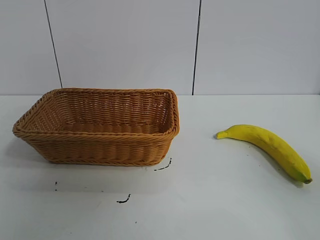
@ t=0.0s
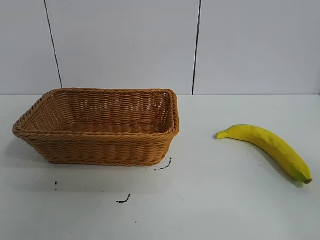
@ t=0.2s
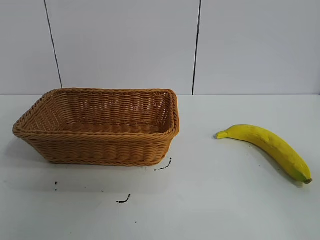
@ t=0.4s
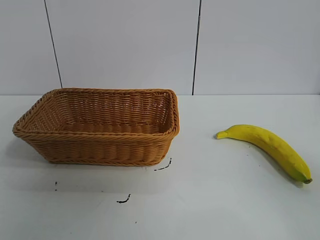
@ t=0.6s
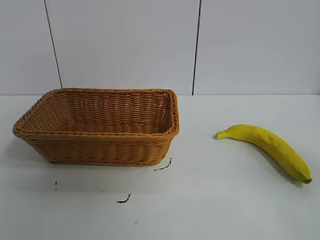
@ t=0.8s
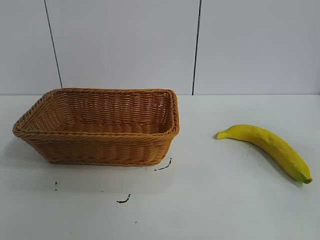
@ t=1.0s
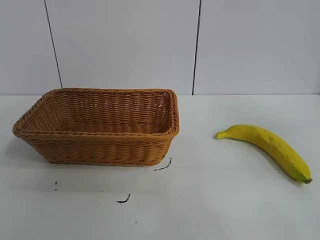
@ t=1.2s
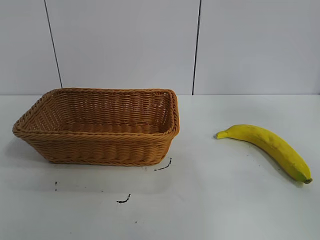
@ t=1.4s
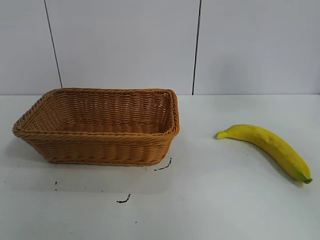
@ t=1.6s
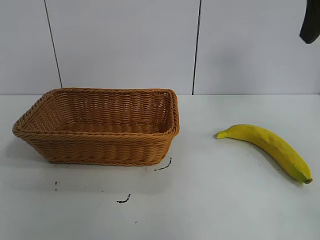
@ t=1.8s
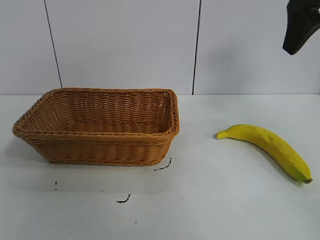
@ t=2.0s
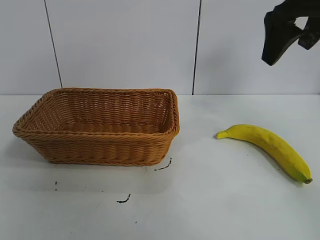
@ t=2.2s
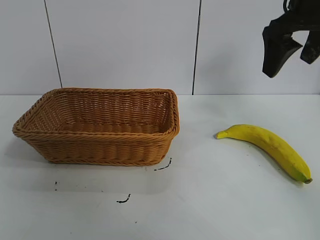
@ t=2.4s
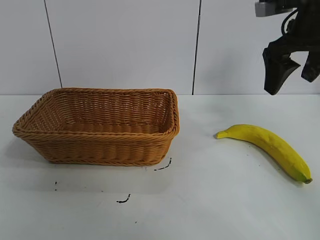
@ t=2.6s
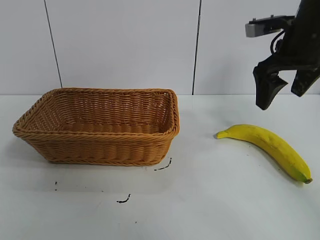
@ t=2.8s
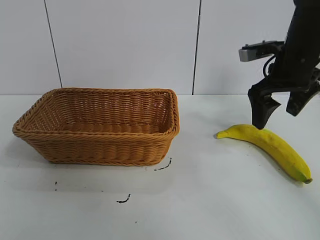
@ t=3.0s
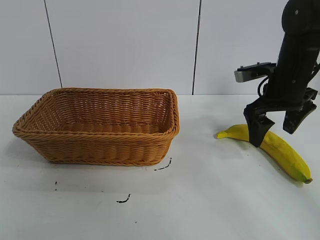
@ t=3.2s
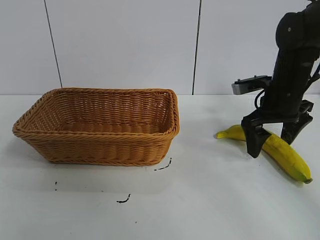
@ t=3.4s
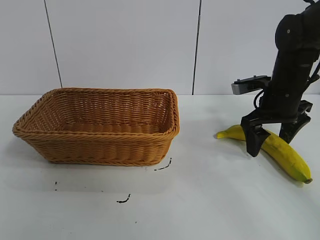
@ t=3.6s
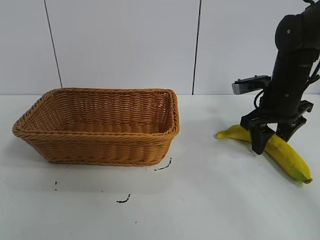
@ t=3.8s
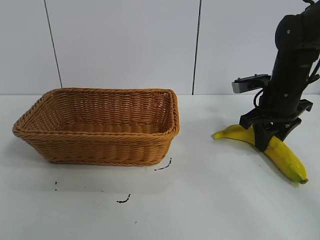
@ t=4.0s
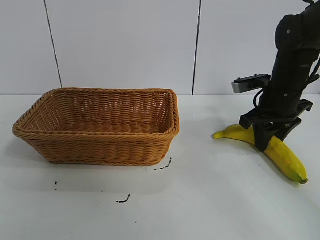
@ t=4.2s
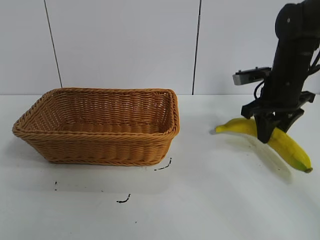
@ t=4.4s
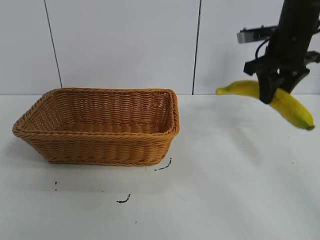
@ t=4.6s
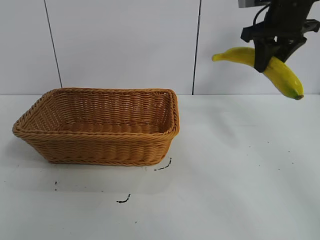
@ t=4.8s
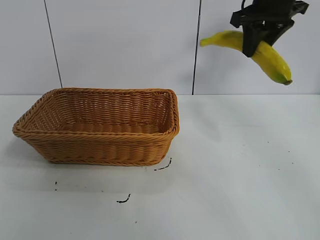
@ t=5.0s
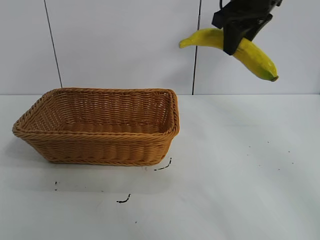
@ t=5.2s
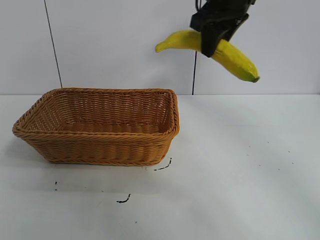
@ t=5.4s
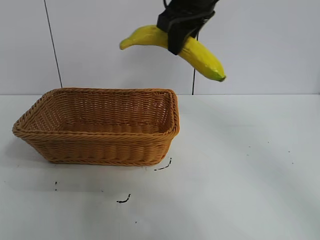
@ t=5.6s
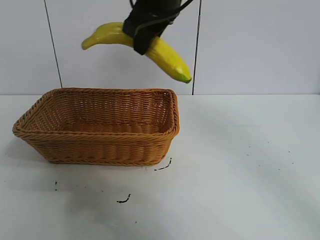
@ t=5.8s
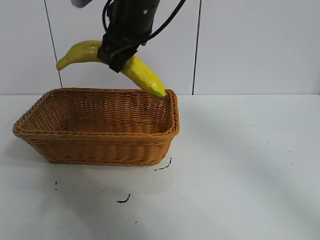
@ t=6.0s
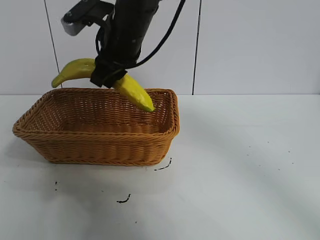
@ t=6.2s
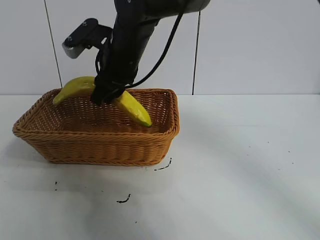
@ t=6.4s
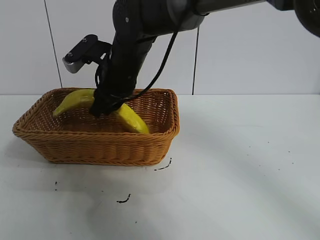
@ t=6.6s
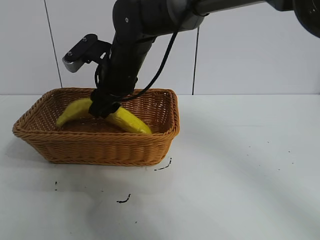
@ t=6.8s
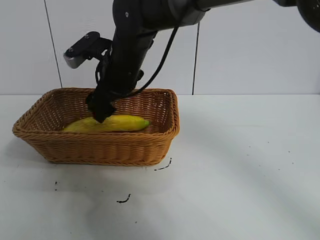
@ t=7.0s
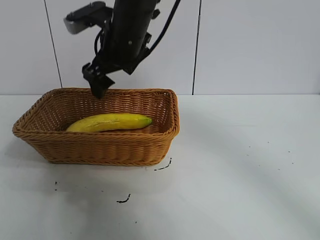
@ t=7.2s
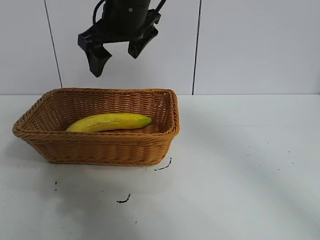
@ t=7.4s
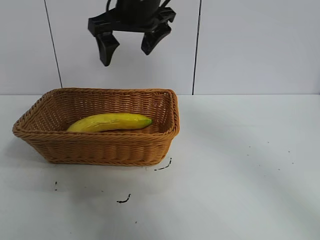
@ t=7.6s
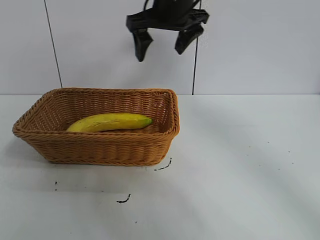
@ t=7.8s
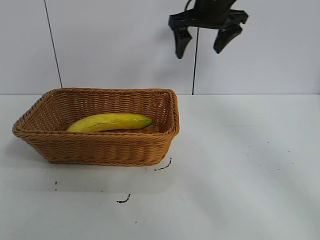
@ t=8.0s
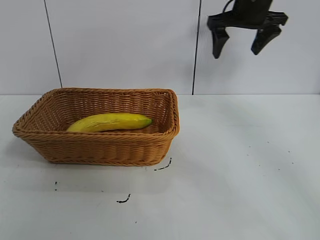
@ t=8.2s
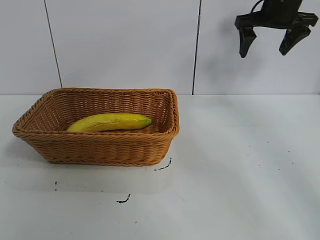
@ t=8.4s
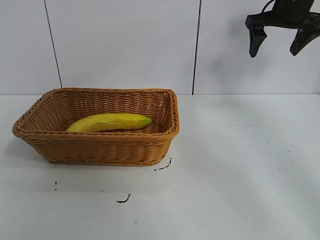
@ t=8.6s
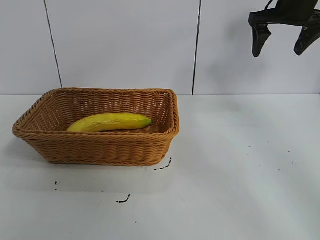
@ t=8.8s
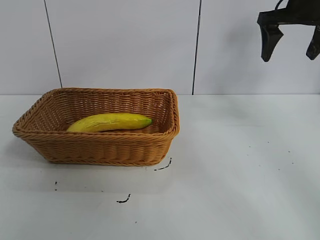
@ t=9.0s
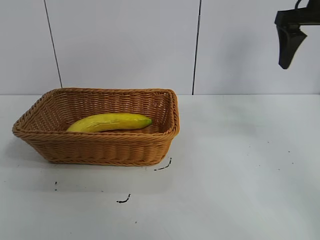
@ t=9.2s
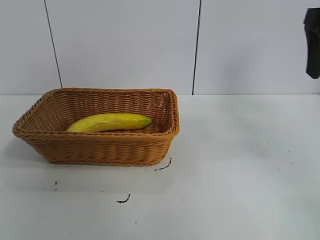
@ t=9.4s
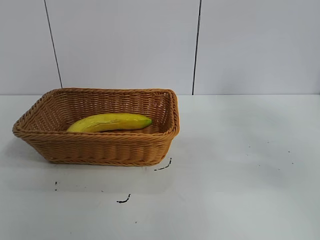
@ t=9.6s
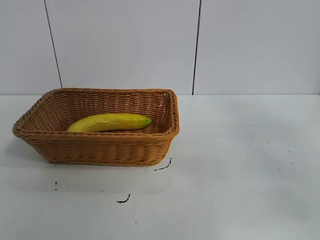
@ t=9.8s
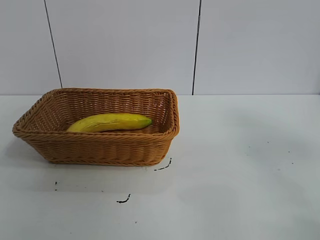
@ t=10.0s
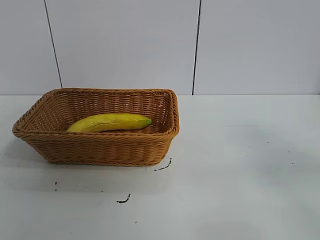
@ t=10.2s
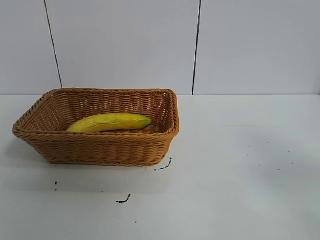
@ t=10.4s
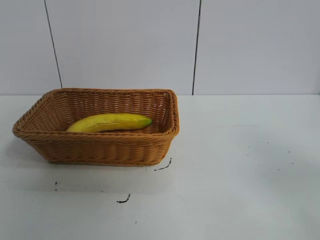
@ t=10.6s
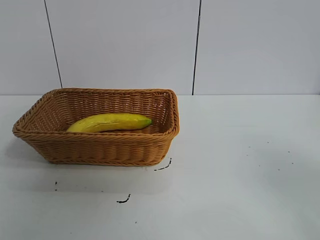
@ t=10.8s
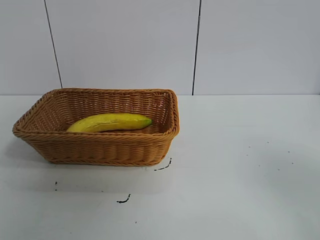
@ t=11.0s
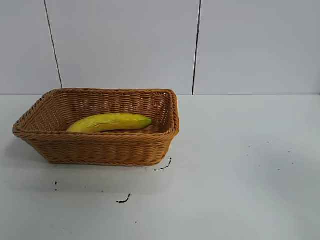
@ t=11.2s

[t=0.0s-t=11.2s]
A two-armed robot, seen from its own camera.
Task of the whole recording: pick up the banana and put it into the basket.
Step, t=0.8s to t=4.0s: Grasp the banana with right gripper.
Step, t=4.2s to t=6.8s: Place the banana in the basket with right gripper.

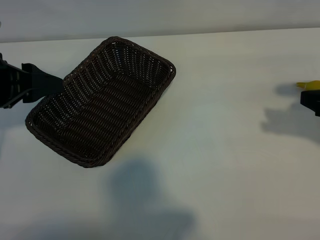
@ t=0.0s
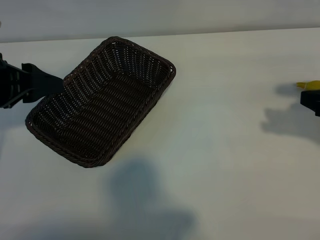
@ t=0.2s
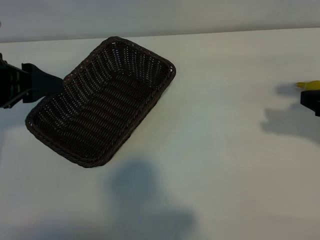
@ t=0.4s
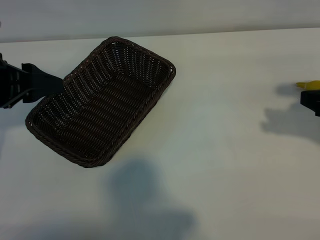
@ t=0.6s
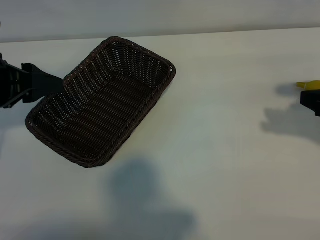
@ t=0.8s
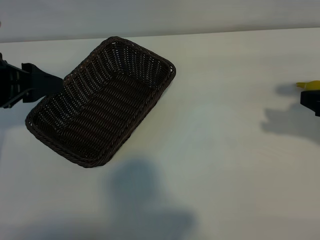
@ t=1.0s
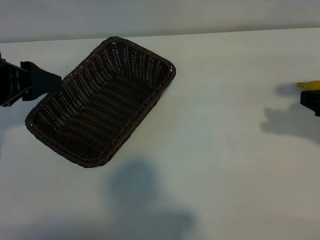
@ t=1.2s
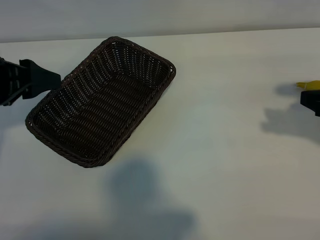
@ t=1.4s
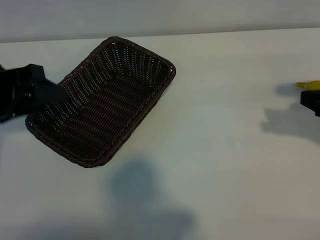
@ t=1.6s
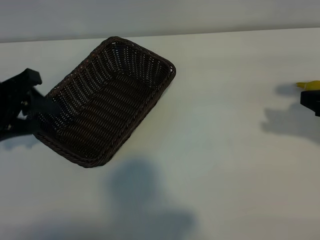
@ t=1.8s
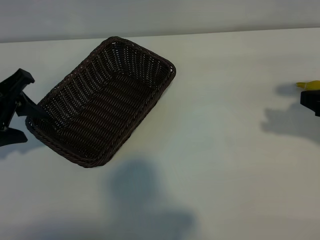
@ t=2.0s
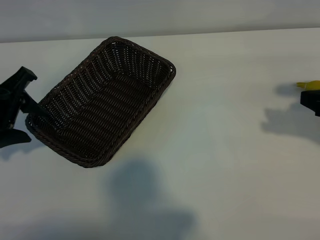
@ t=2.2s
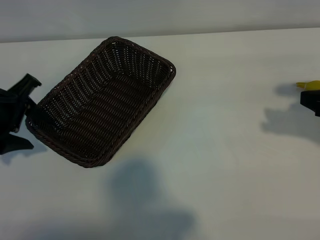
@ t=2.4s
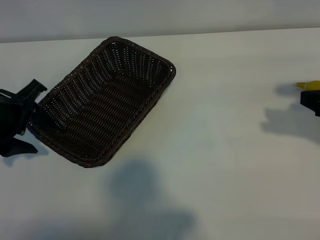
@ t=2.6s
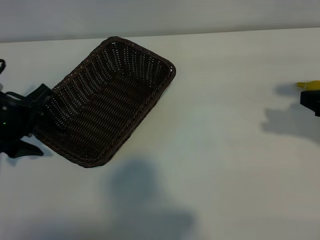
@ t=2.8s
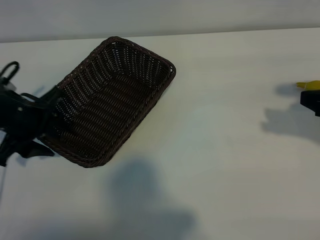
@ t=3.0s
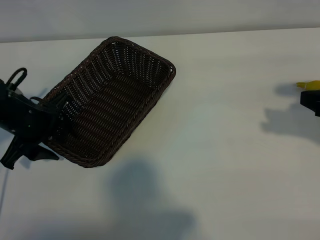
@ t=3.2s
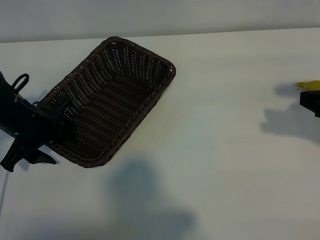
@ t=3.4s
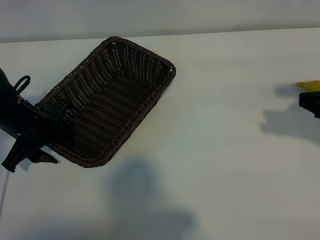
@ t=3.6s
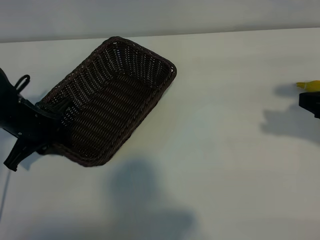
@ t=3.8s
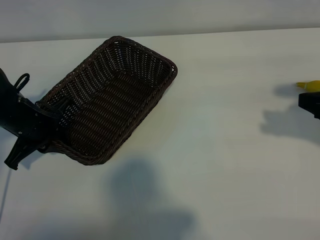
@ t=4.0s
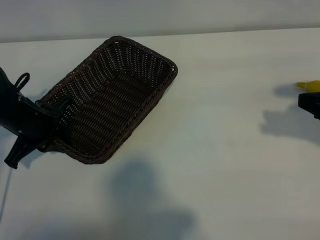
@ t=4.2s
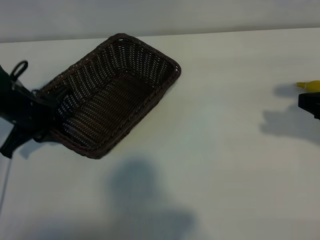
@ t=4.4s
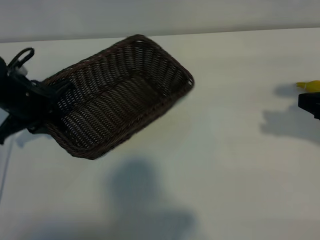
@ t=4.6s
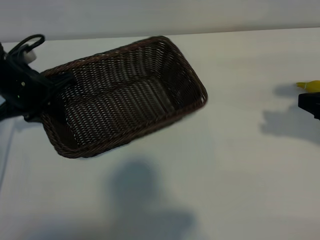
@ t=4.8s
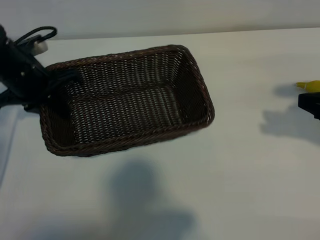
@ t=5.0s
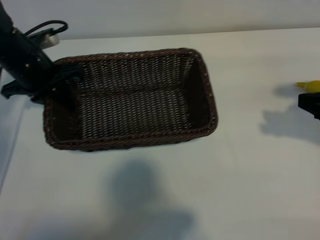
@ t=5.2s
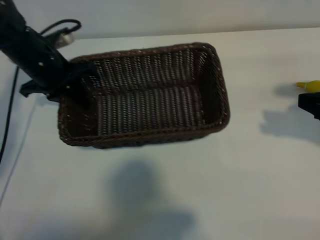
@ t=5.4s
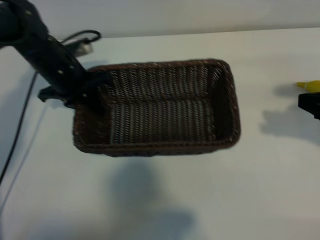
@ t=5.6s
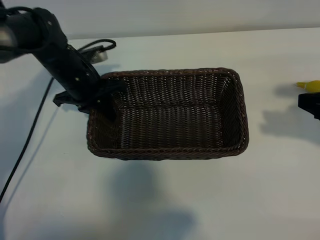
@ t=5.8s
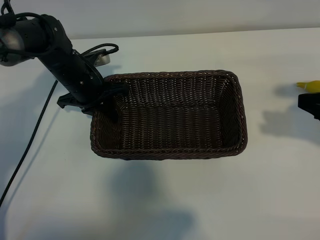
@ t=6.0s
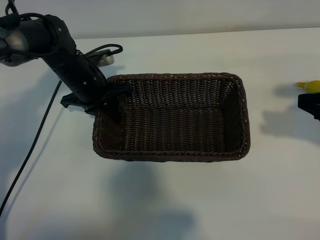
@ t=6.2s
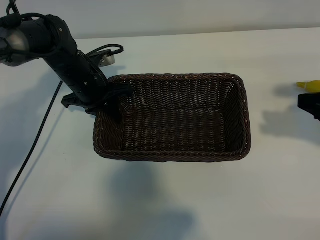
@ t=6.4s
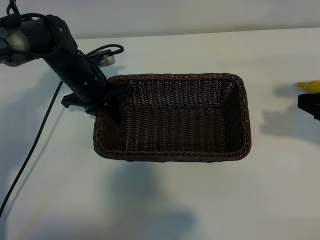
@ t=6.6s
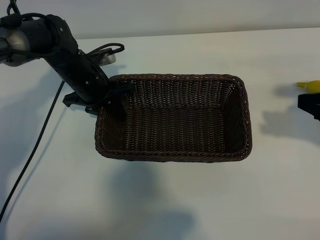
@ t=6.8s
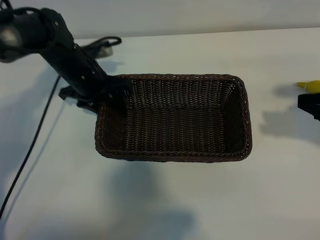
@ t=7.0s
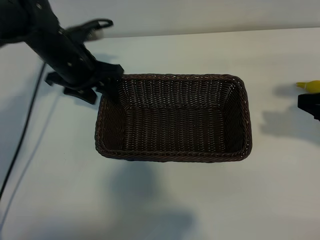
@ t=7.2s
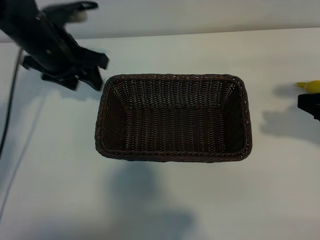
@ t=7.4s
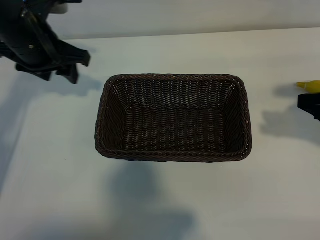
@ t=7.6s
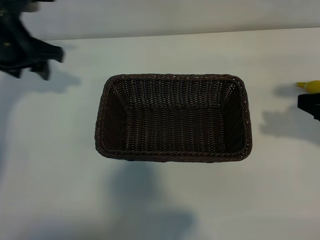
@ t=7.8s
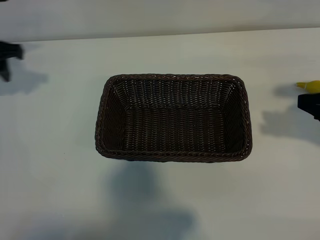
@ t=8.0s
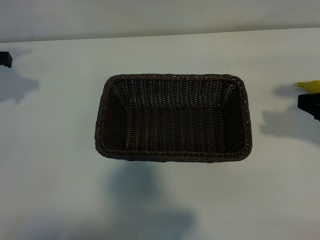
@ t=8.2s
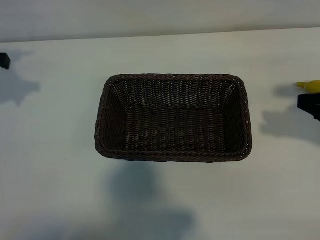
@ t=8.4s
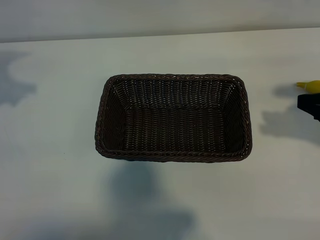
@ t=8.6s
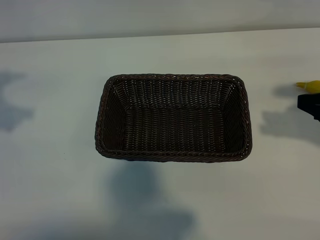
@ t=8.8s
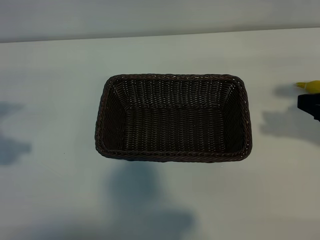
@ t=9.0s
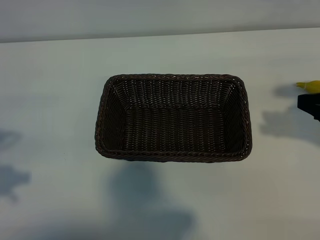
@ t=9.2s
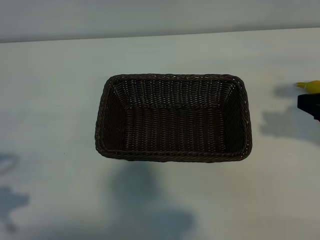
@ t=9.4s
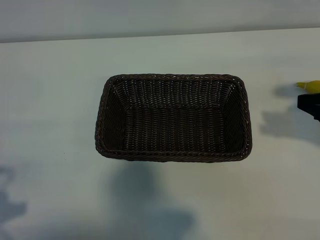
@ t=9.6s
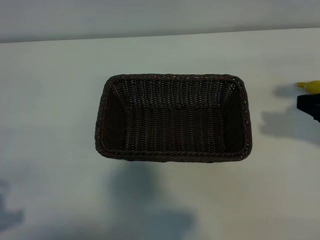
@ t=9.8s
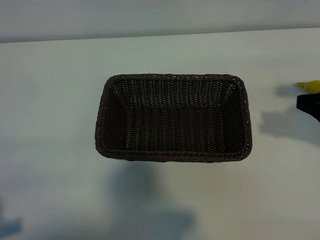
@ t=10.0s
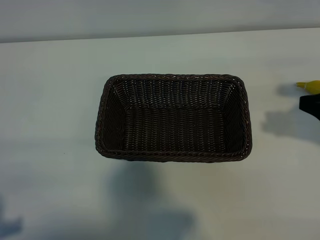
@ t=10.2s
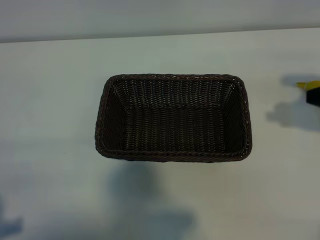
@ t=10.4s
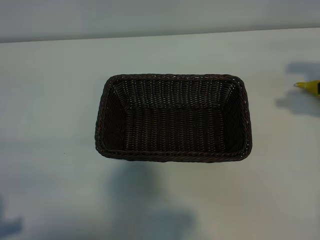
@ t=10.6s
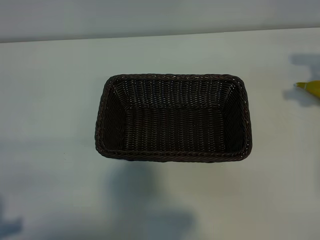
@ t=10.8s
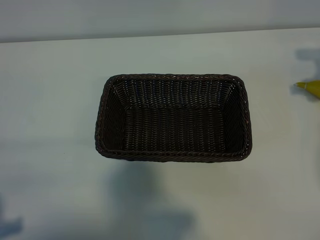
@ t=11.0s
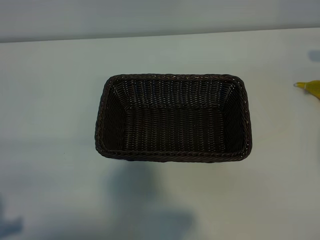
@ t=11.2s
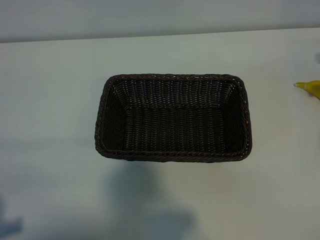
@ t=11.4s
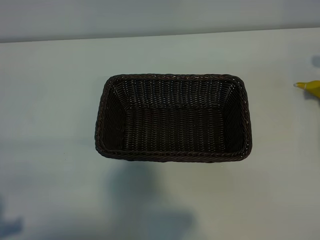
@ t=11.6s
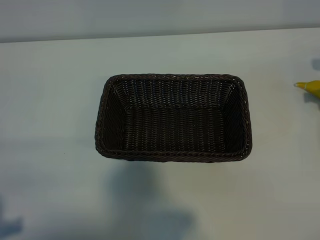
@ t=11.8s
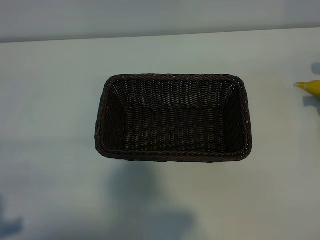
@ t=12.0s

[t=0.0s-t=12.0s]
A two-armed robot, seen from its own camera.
Task of the whole recording: pick up the banana and put it into the basket.
Step, t=1.2s to t=3.6s: Grasp the basket with the left gripper.
Step, t=4.0s to t=7.2s: Place the basket in the center of the table with the left gripper.
